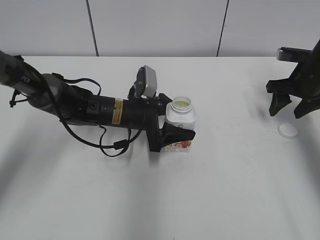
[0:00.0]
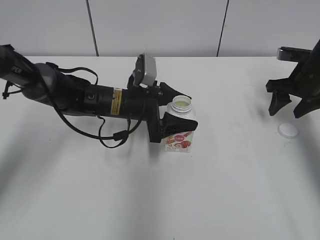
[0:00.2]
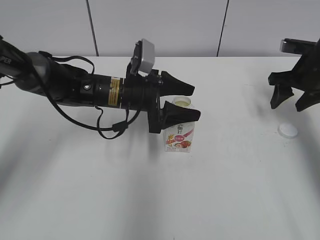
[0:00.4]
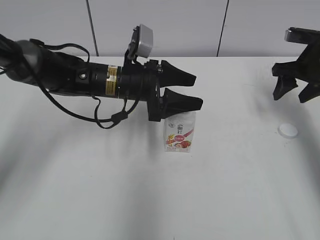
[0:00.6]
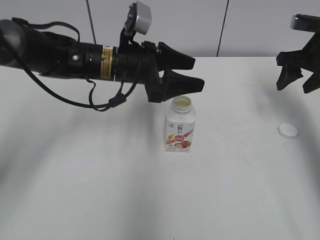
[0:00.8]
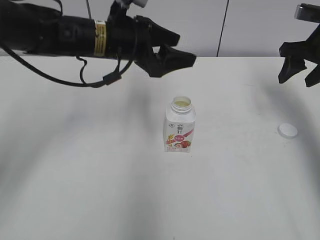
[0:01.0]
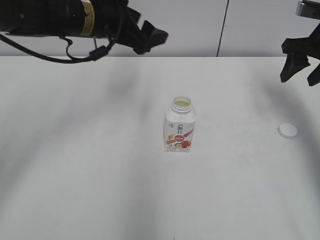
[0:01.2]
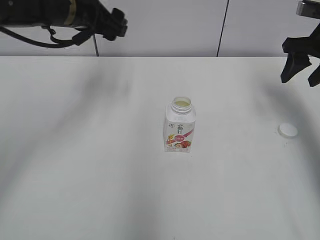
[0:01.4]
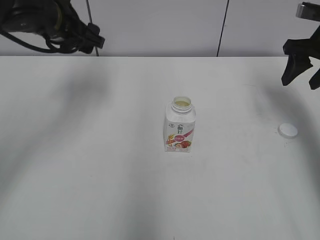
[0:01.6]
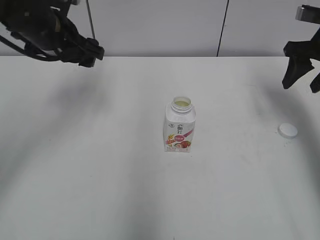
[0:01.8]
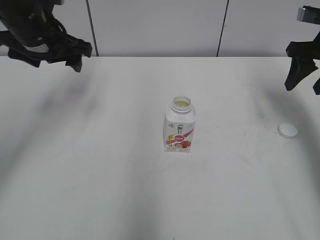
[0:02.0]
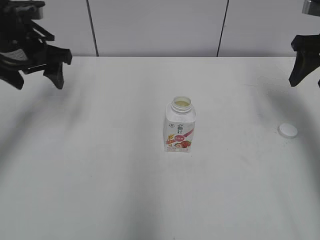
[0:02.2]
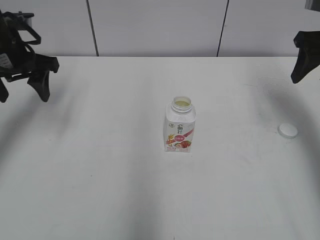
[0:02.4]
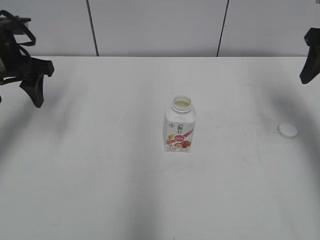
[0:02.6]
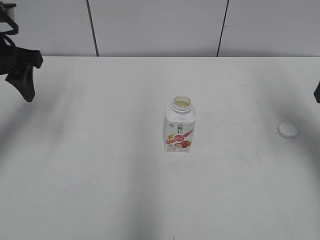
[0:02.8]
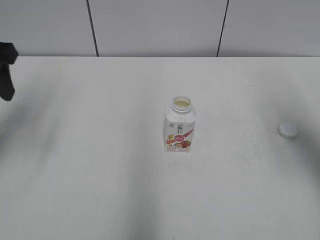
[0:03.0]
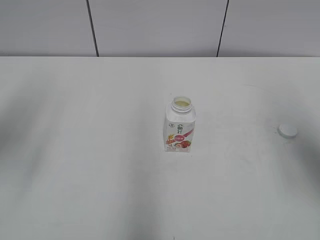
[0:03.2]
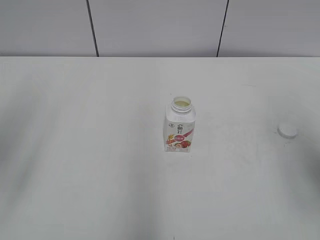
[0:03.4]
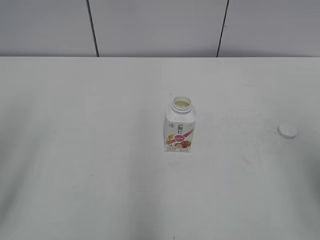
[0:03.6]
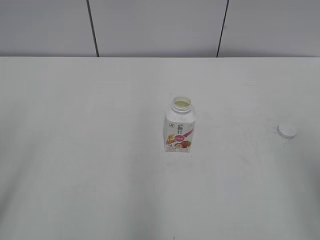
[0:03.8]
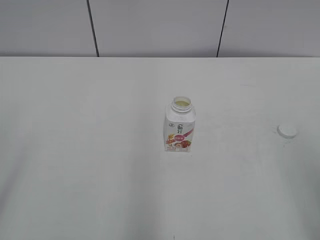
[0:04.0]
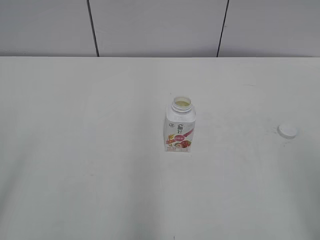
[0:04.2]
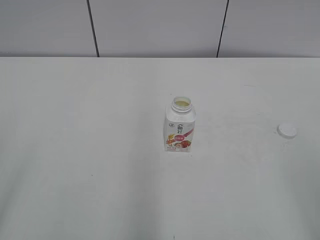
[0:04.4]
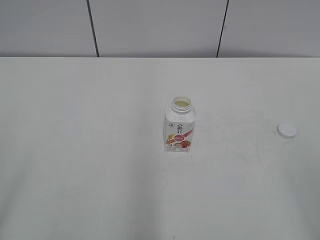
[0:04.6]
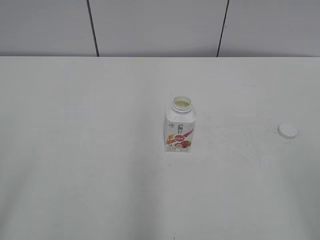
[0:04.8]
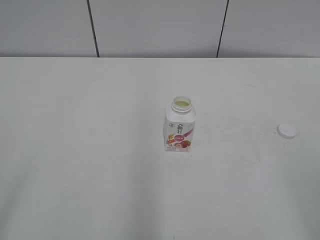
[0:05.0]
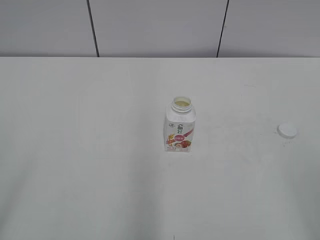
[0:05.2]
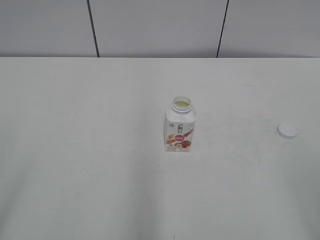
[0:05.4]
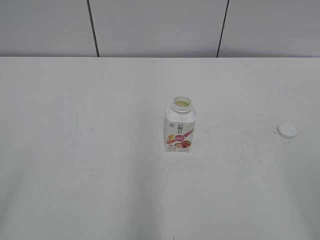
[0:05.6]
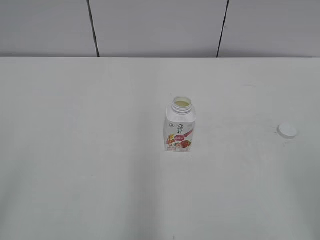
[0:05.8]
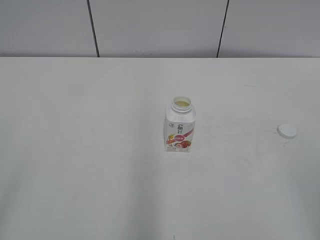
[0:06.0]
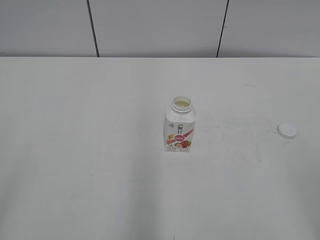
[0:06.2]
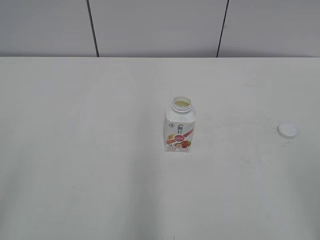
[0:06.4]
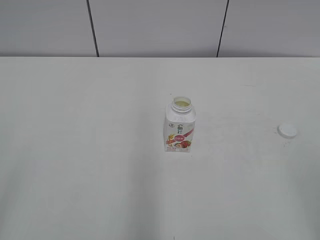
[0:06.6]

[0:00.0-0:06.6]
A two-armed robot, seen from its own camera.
0.0 to 1.6 s: The right gripper shifts roughly 10 cm upward; the left gripper travels upward and to the left by approximately 20 cm.
1.6 to 3.2 s: The right gripper goes some 20 cm backward; the left gripper is displaced backward and to the left by approximately 20 cm.
3.2 to 5.0 s: Both grippers move backward, roughly 25 cm.

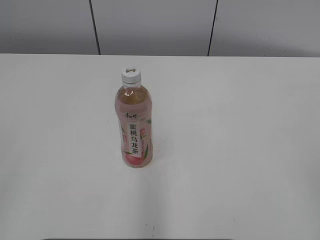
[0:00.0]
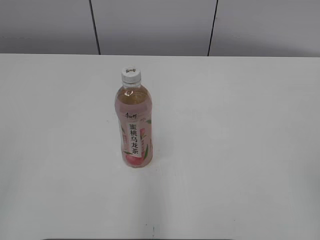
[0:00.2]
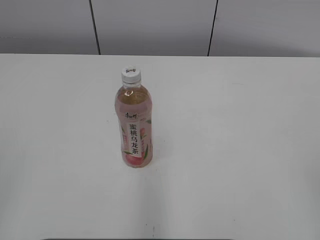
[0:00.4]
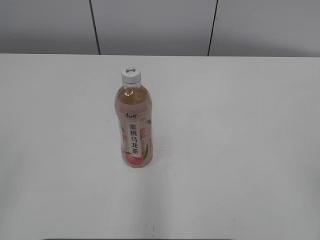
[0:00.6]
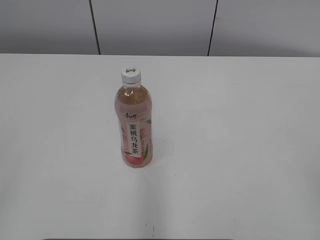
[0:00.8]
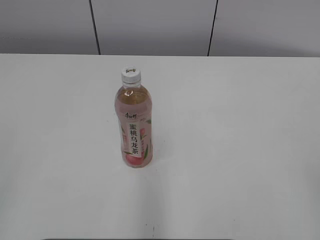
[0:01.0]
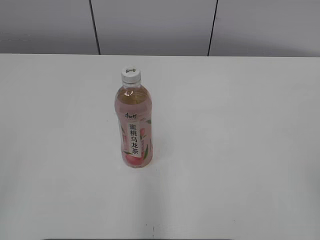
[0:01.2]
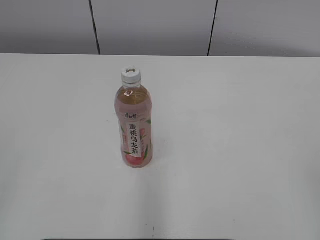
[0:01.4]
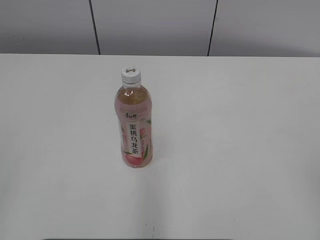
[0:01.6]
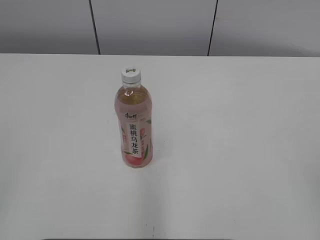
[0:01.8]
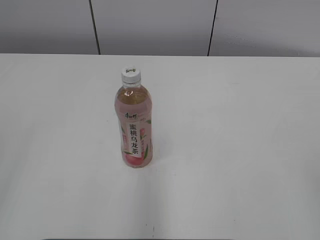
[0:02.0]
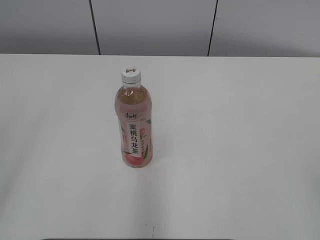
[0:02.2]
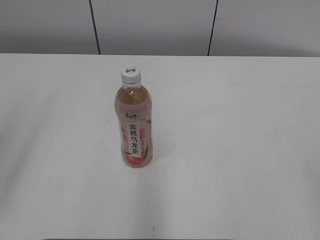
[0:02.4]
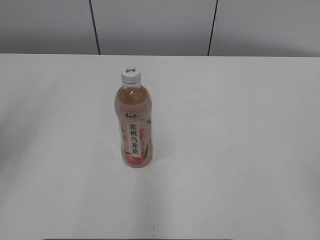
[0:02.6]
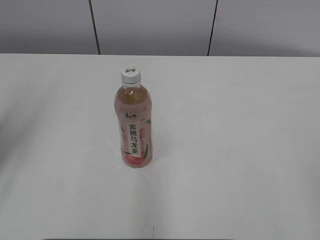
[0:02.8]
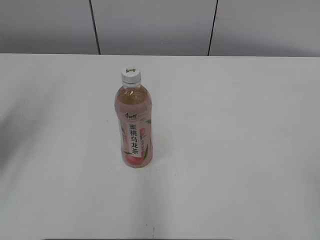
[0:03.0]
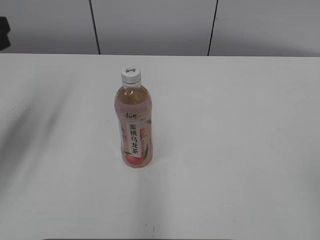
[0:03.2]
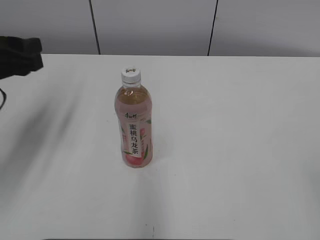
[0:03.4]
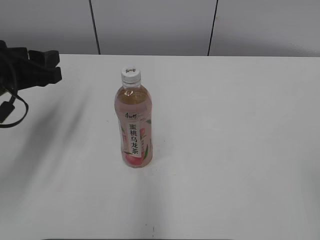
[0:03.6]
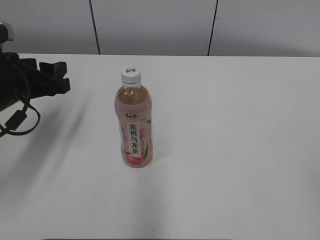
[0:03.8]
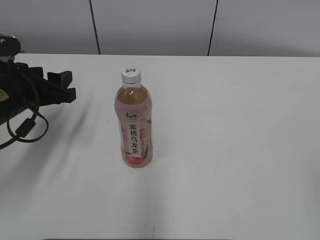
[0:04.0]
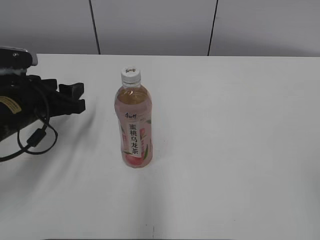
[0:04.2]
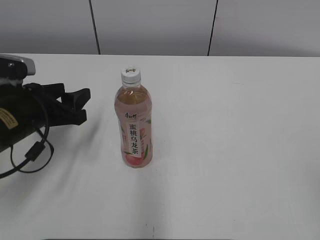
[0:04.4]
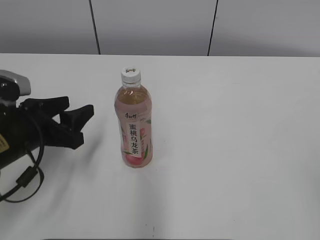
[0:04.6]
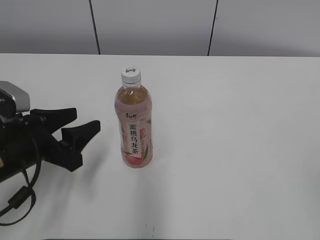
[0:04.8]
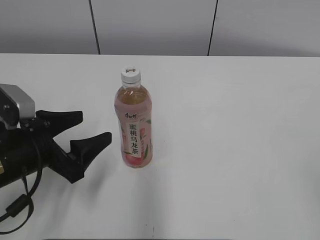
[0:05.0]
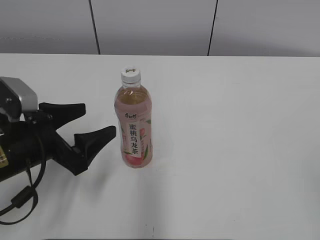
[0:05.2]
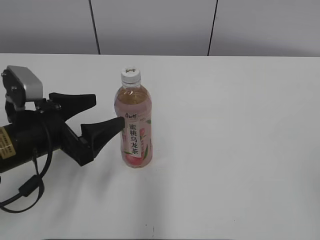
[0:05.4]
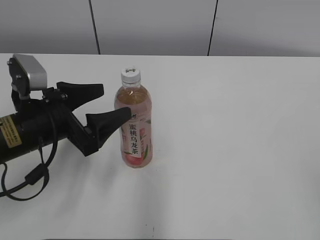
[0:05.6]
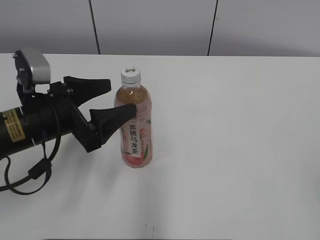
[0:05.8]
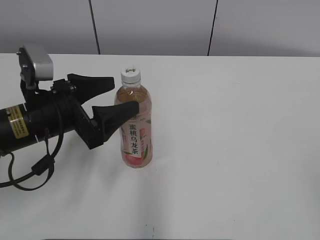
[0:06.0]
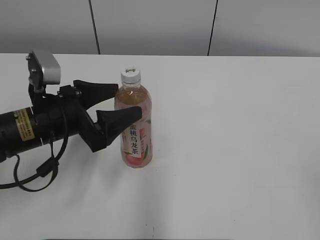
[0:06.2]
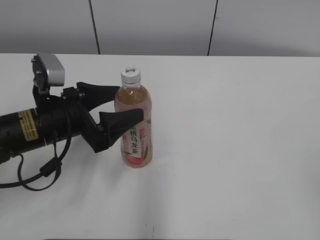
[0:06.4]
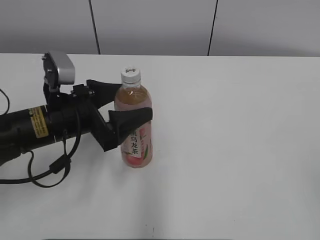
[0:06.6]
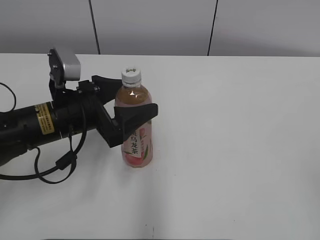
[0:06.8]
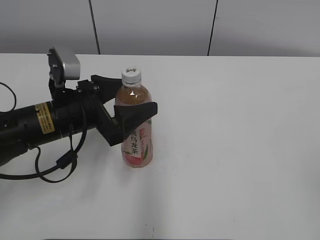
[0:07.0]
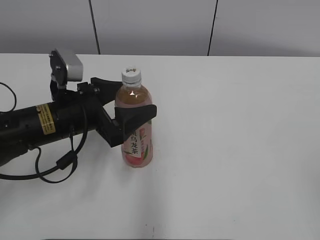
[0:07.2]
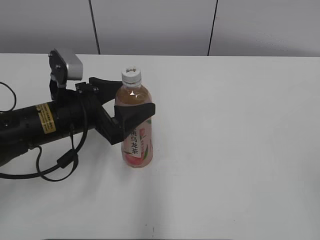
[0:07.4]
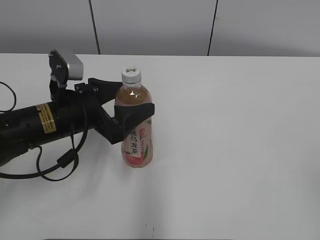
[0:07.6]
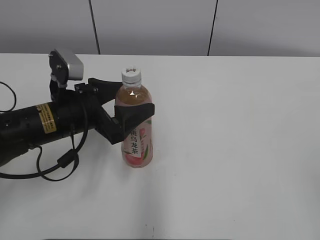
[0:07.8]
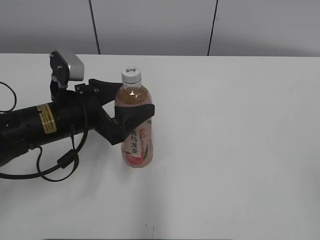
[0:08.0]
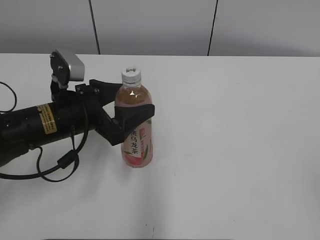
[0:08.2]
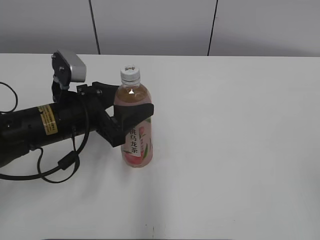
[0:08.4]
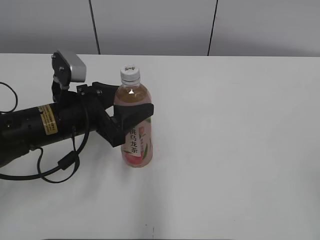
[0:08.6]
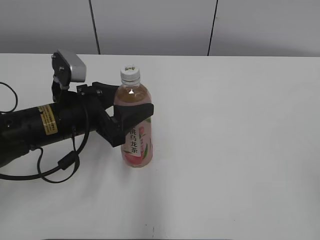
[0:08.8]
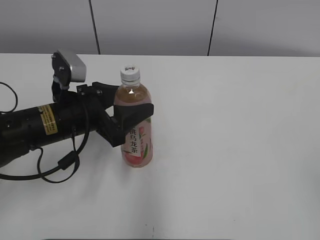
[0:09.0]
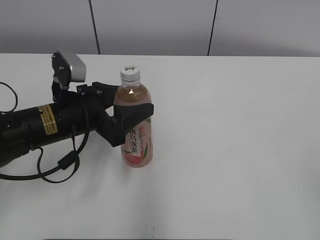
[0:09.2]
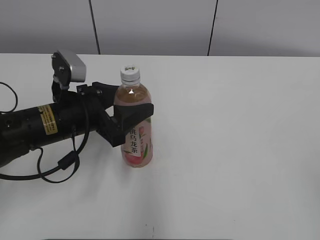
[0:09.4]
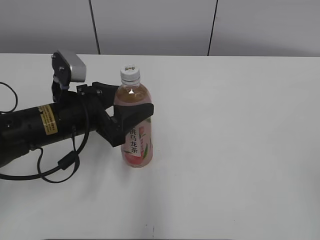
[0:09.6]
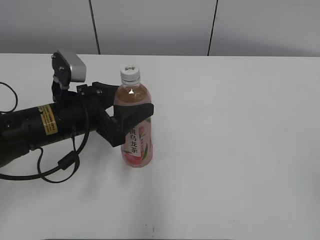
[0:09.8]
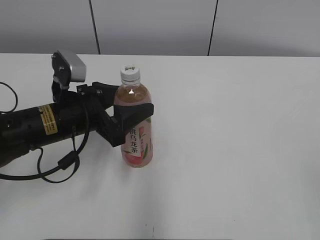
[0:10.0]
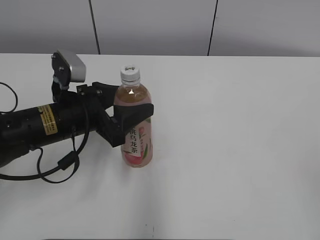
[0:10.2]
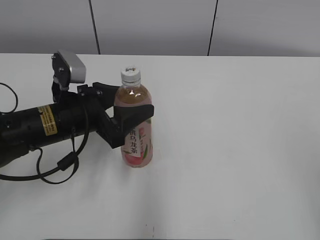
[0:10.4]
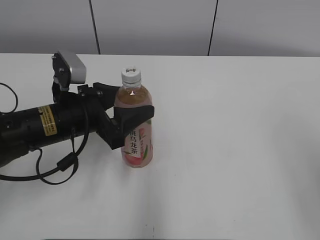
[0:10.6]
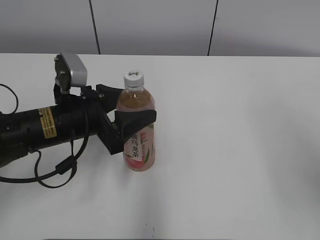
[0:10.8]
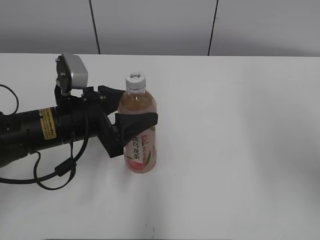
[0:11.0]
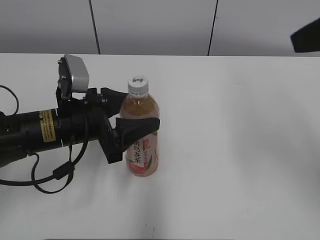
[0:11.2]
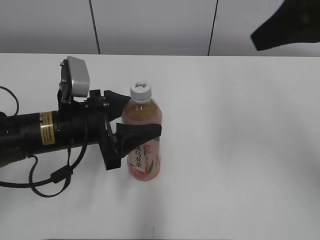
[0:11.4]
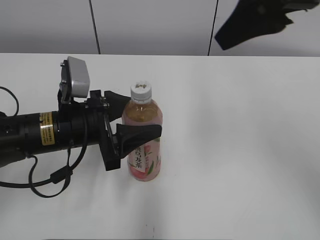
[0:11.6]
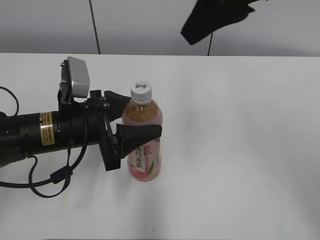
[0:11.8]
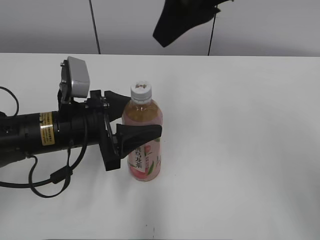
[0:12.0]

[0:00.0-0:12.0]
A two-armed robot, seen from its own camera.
Step, 0.0 to 10.2 s: Grab the Peach Oolong Tea with the left hand.
1.6 to 3.0 s: The left gripper shifts some 25 cm forward.
3.0 to 4.4 s: The left gripper is displaced downward and to the right by some 15 cm.
4.4 to 6.0 s: The left gripper moves roughly 5 cm, and opens.
6.0 to 7.6 s: There are only small adjustments of the grippers.
7.6 to 9.0 s: The left gripper closes up.
9.0 to 10.4 s: The grippers move only a little.
10.4 to 12.0 s: The right gripper heads forward and to the left, covering approximately 35 cm.

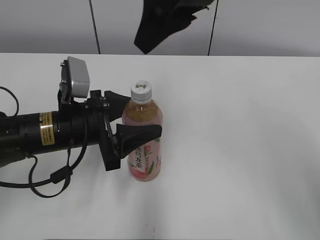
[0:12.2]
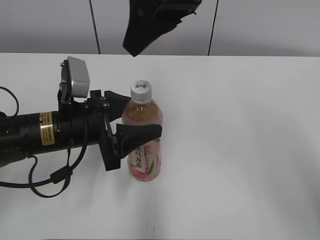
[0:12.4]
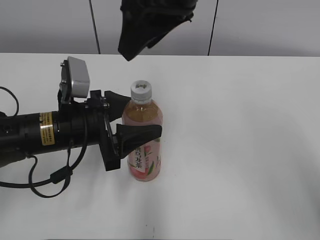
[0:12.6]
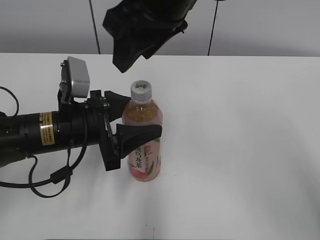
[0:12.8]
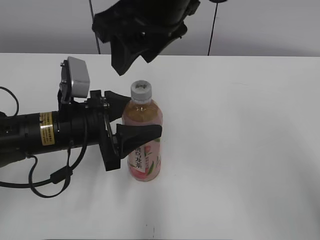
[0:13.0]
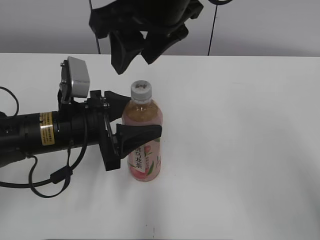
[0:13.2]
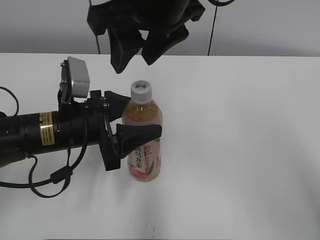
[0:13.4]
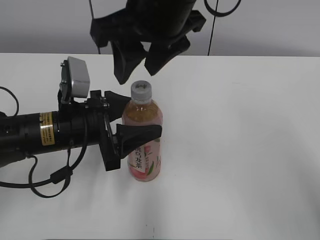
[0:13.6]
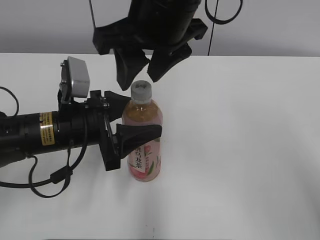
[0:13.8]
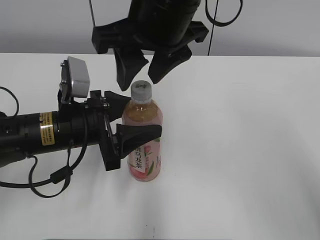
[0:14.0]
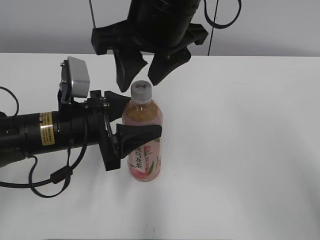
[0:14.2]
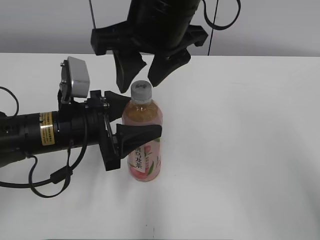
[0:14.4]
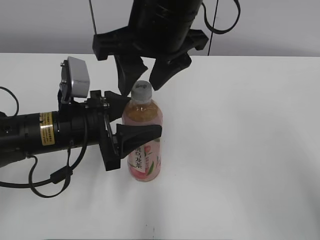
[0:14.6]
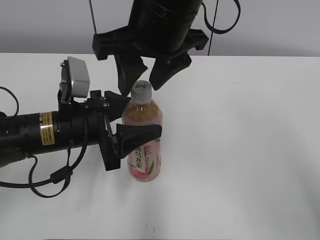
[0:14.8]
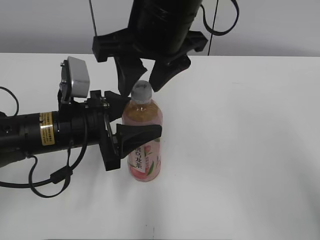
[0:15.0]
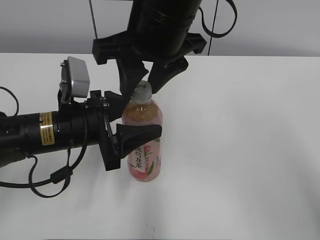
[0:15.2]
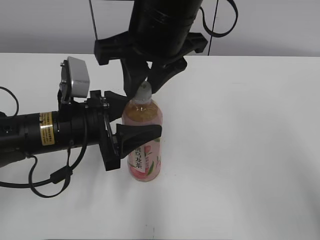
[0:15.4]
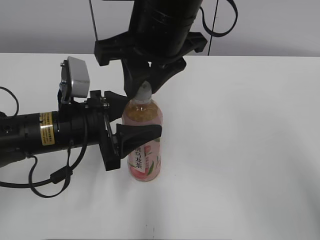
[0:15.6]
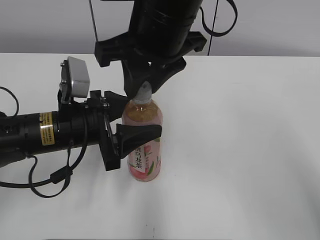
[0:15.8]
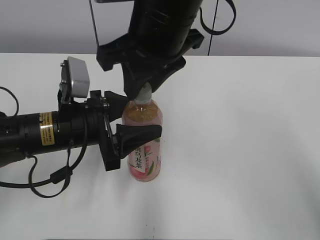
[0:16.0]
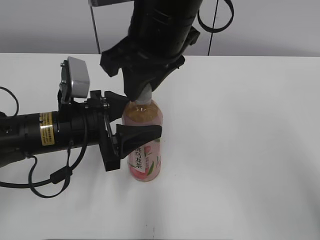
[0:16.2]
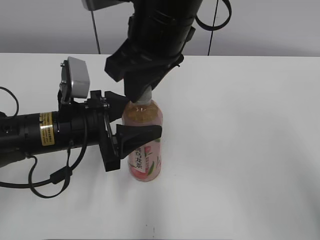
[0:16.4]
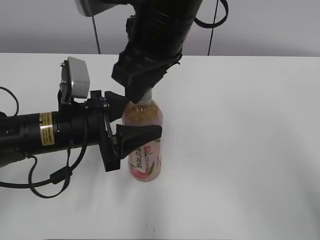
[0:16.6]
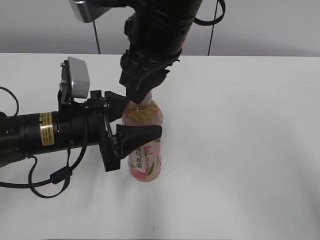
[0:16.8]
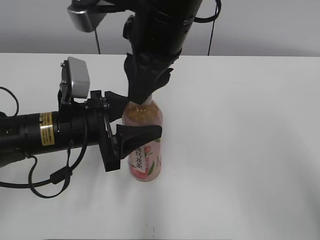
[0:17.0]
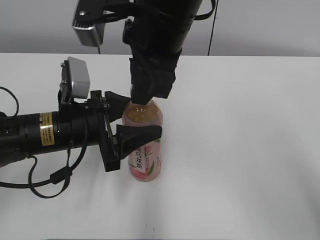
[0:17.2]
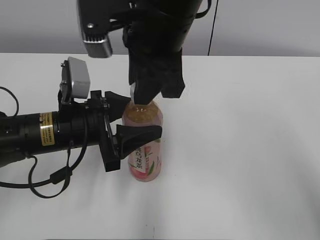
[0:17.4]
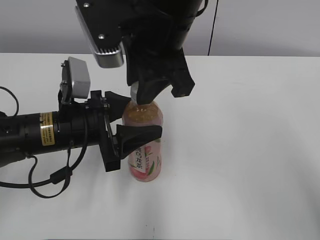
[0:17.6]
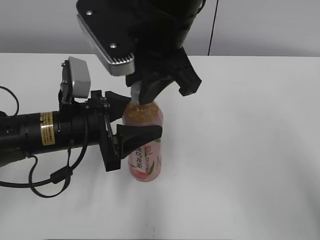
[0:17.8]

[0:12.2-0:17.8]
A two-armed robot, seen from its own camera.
Step, 12.2 to 14.6 s: Move the Peach Oolong Tea from left to right.
12.2 to 13.6 s: The right gripper moves approximately 5 cm.
13.6 to 15.0 s: There are only small adjustments of the grippers.
15.0 to 16.4 s: The right gripper closes up.
